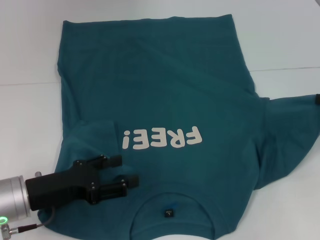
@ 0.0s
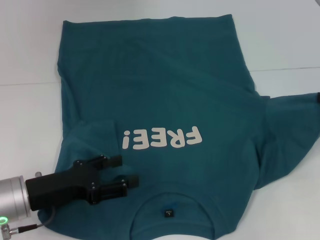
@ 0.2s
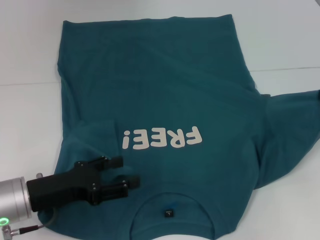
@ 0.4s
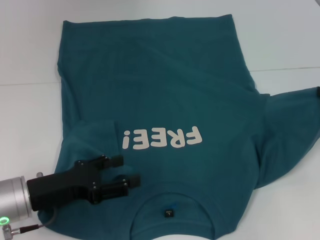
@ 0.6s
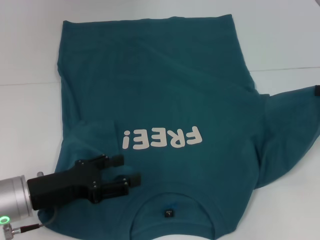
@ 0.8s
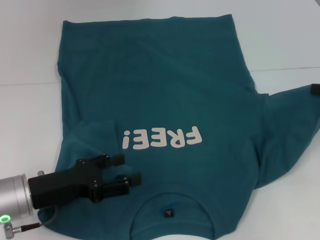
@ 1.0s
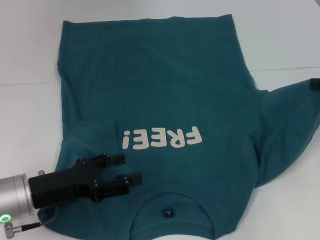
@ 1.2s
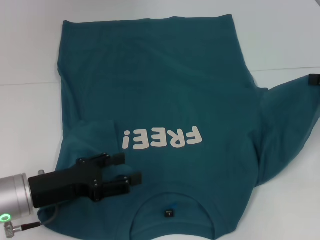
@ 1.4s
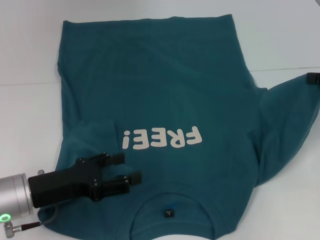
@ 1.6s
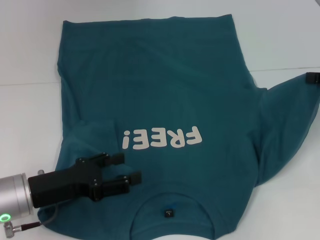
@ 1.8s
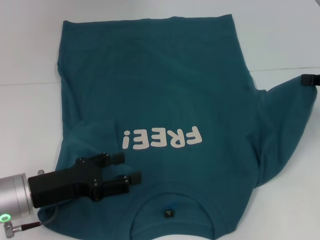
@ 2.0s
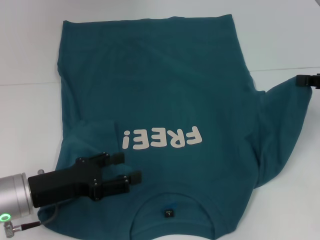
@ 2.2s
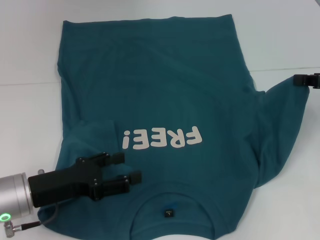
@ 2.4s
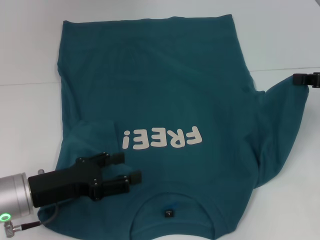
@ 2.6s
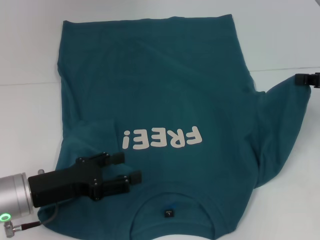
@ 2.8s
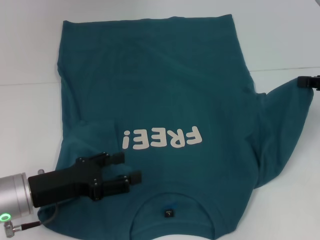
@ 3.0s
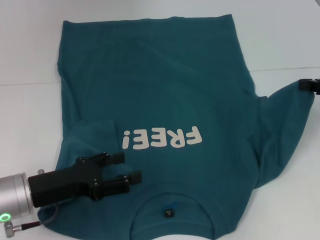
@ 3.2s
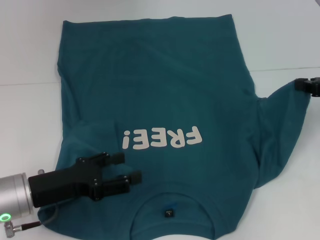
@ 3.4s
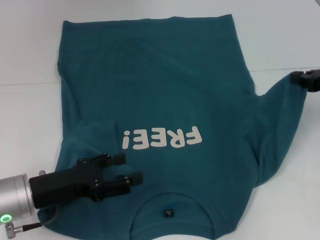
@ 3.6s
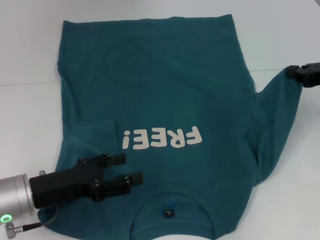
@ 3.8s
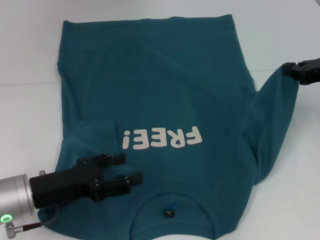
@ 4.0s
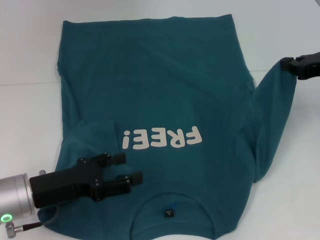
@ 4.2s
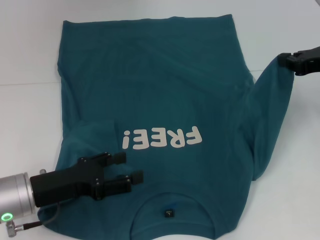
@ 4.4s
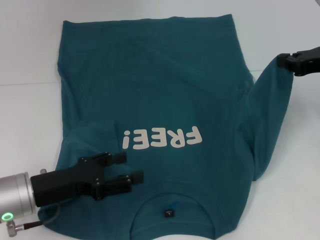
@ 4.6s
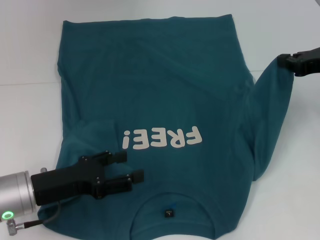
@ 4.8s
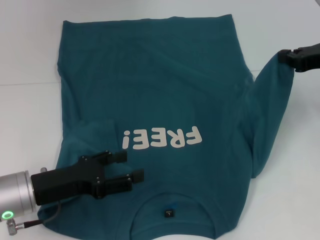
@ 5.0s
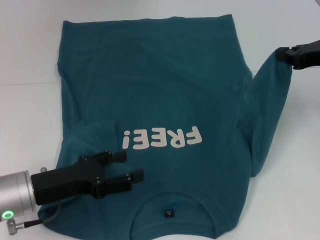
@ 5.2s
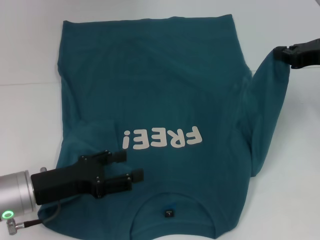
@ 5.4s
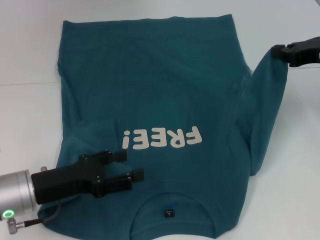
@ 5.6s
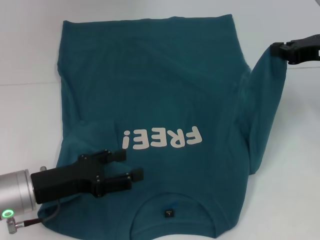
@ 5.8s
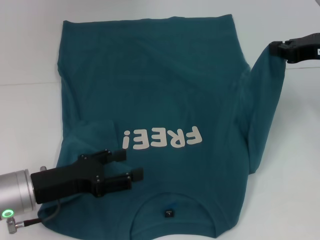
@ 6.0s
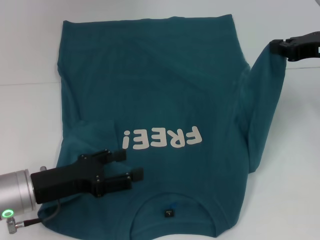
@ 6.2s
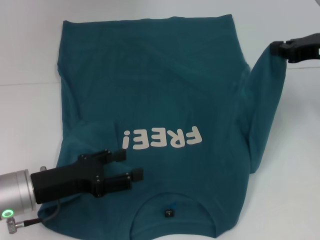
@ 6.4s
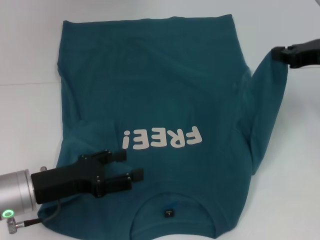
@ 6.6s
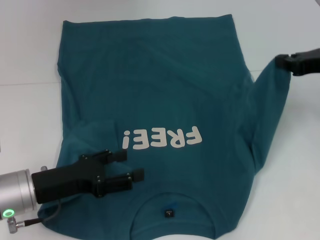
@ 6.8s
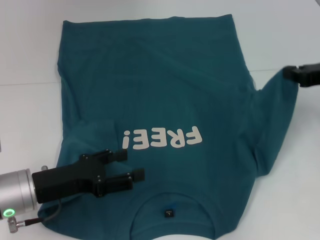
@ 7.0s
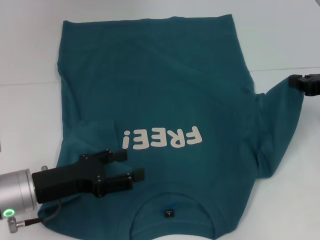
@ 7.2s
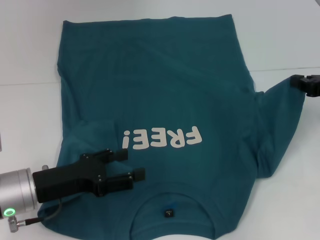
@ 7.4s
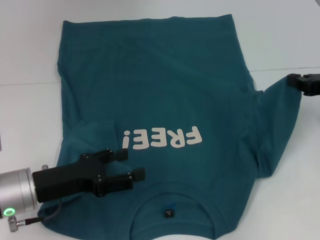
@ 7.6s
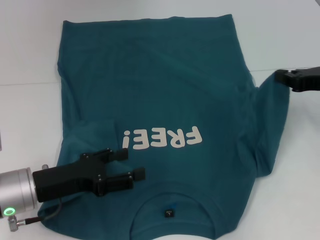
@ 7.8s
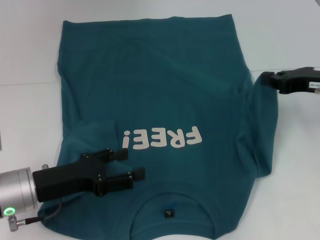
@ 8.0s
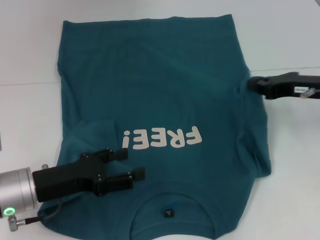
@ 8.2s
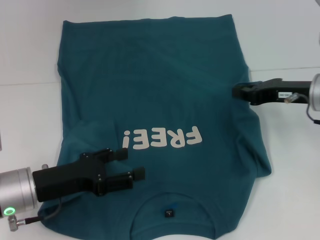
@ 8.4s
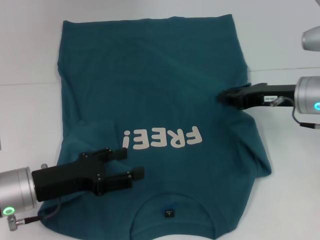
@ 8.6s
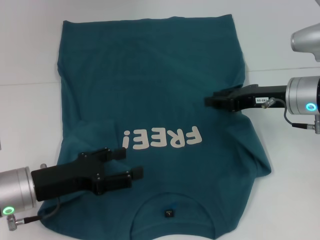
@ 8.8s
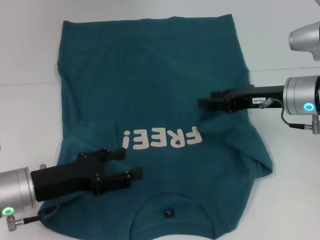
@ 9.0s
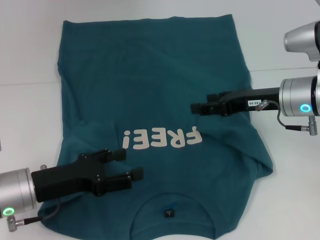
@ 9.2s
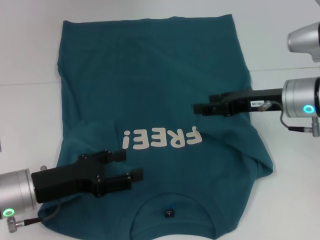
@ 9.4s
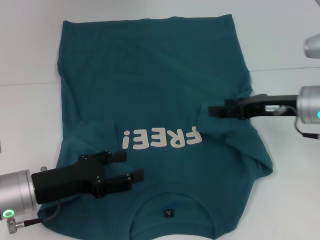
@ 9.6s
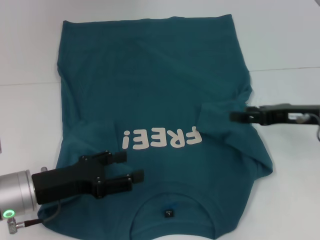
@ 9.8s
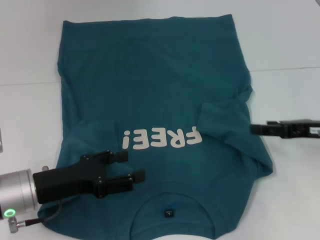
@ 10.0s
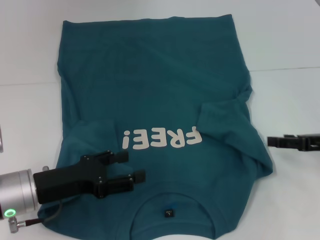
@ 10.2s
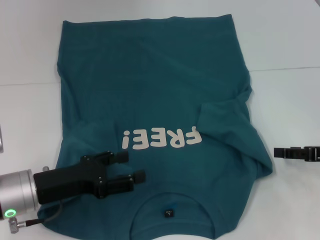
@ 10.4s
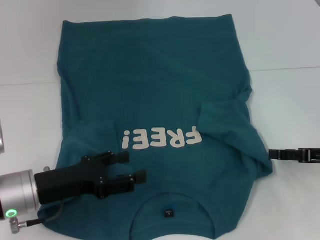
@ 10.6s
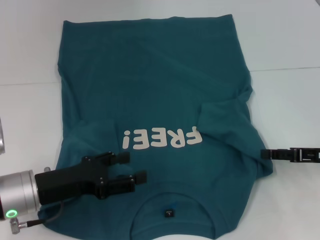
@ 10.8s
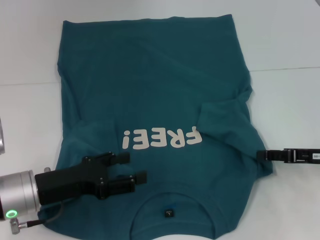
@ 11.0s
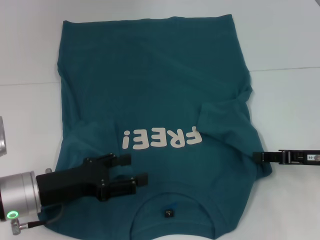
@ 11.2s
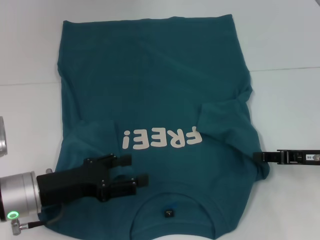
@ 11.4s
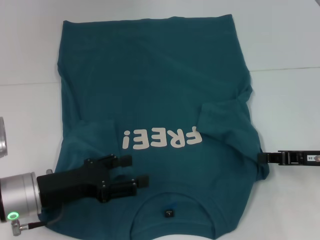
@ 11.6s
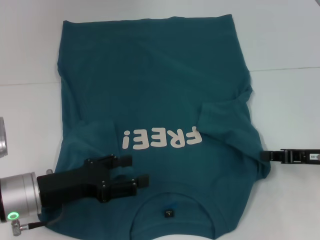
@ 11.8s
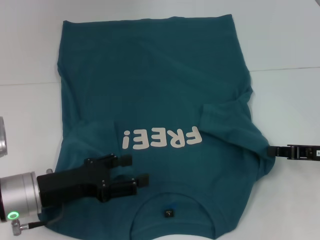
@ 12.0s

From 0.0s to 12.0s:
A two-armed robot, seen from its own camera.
From 0.0s to 3.0s: There are only small adjustments of the grippers.
From 3.0s to 4.4s: The grippers make only small movements.
From 4.4s to 6.0s: The grippers stay close to where they were, moving slightly.
From 6.0s to 7.6s: The right gripper changes place by some 5 cm.
From 7.6s to 9.0s: The right gripper goes approximately 10 cm to the left, and opens up.
From 9.0s to 10.4s: The right gripper moves to the right, backward and downward, approximately 15 cm, and opens up.
From 10.4s to 12.0s: The right gripper closes up.

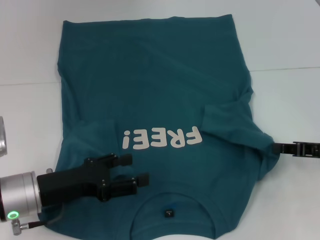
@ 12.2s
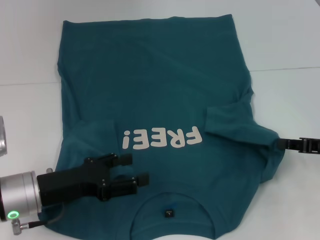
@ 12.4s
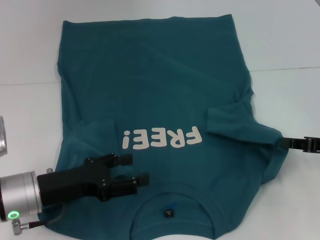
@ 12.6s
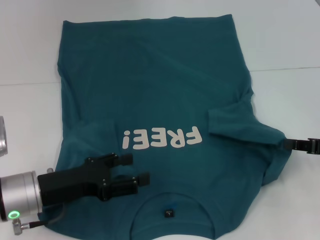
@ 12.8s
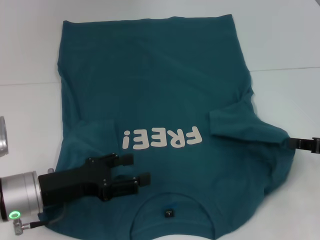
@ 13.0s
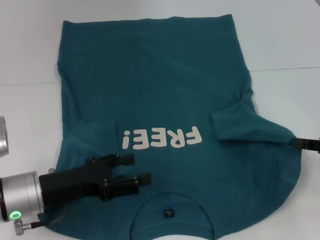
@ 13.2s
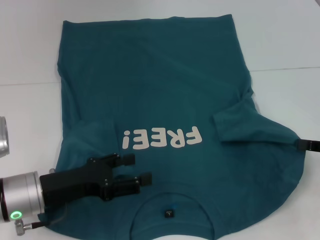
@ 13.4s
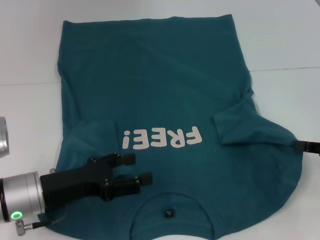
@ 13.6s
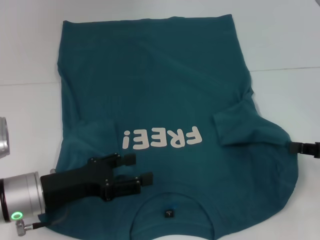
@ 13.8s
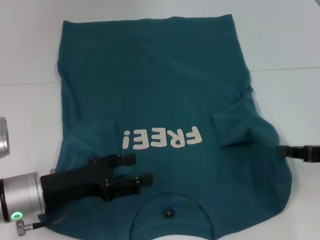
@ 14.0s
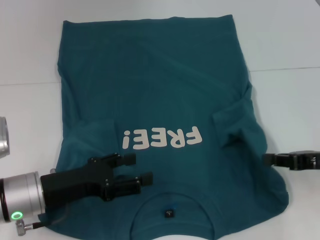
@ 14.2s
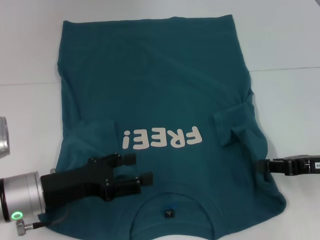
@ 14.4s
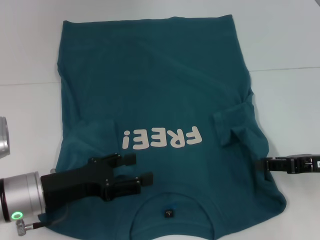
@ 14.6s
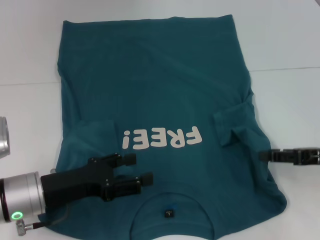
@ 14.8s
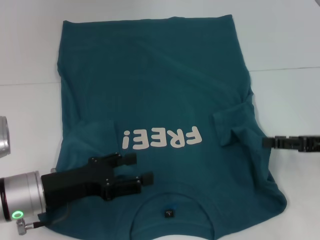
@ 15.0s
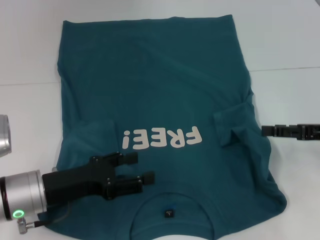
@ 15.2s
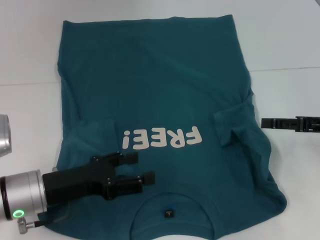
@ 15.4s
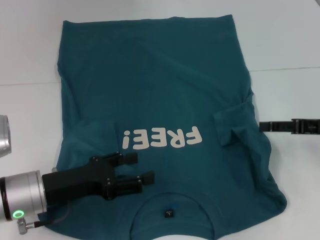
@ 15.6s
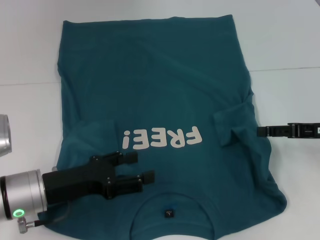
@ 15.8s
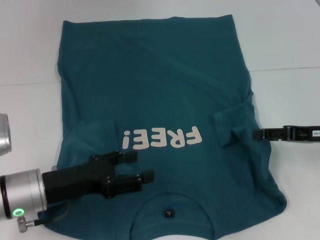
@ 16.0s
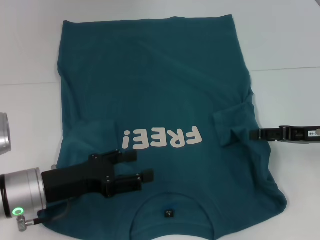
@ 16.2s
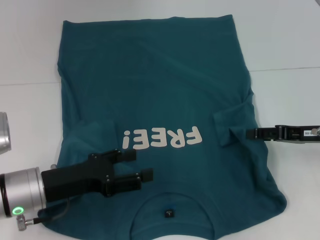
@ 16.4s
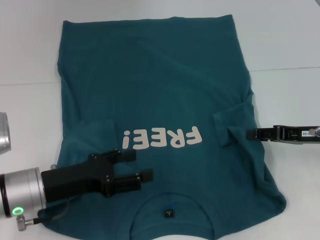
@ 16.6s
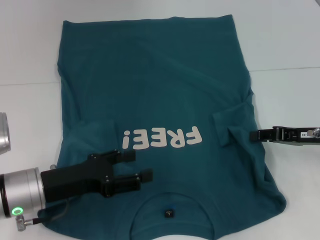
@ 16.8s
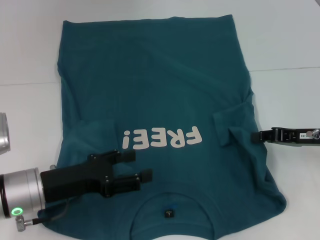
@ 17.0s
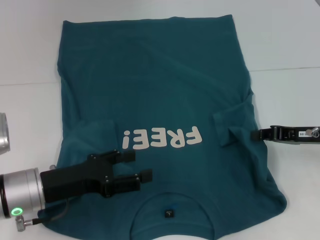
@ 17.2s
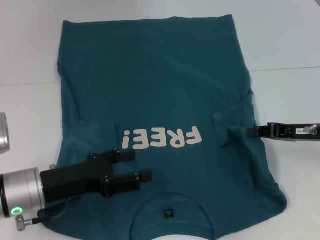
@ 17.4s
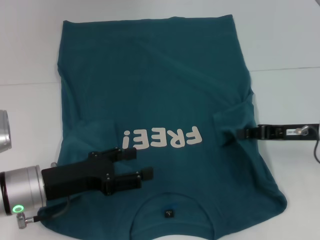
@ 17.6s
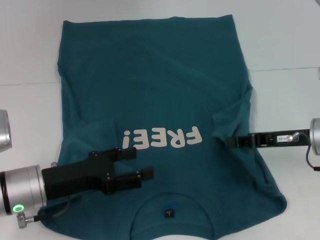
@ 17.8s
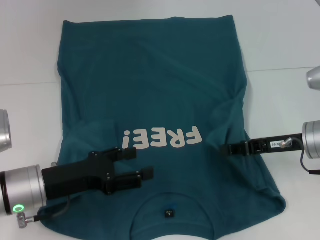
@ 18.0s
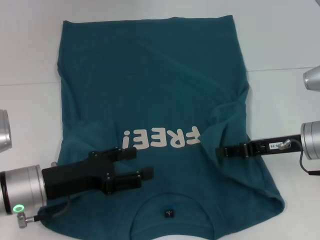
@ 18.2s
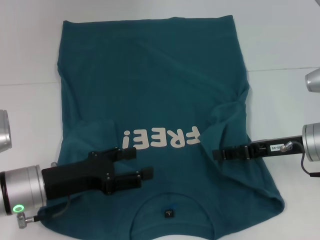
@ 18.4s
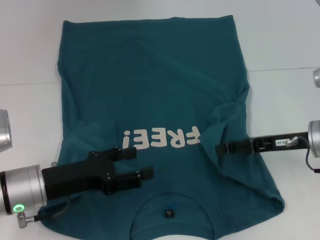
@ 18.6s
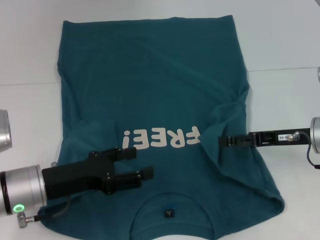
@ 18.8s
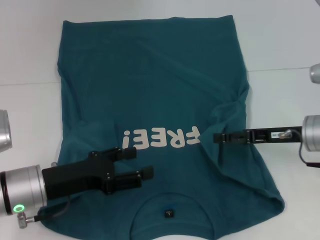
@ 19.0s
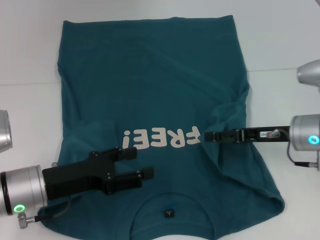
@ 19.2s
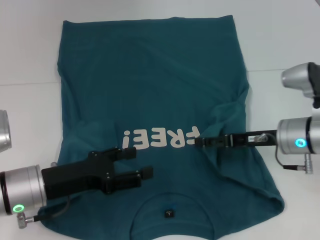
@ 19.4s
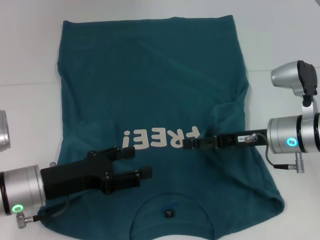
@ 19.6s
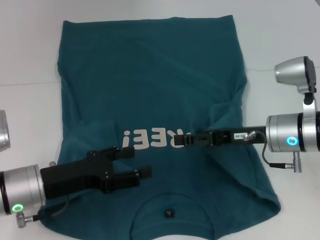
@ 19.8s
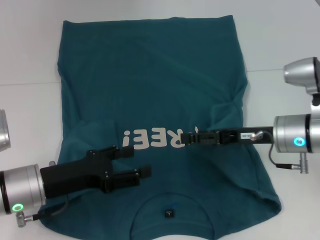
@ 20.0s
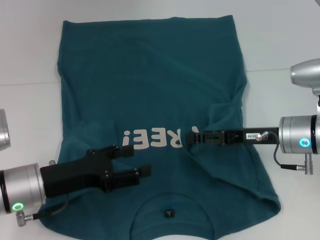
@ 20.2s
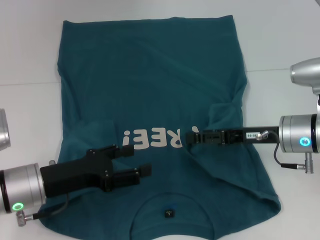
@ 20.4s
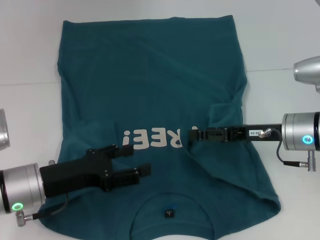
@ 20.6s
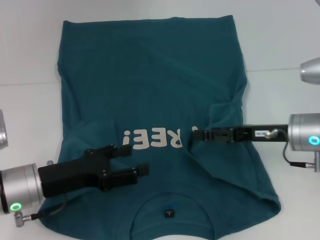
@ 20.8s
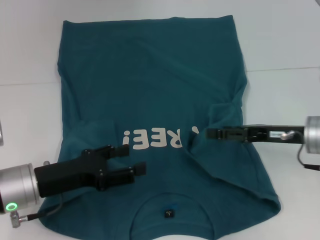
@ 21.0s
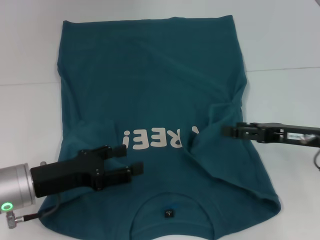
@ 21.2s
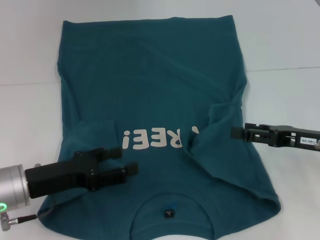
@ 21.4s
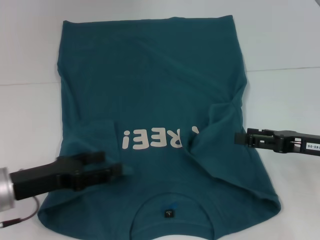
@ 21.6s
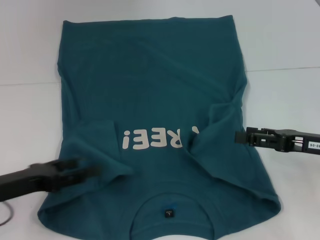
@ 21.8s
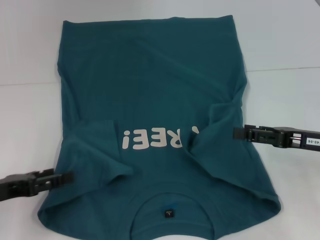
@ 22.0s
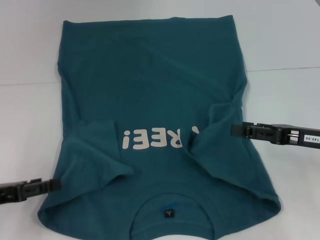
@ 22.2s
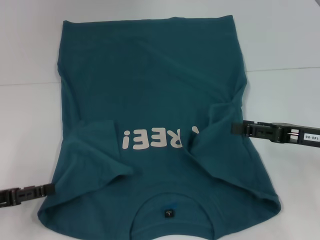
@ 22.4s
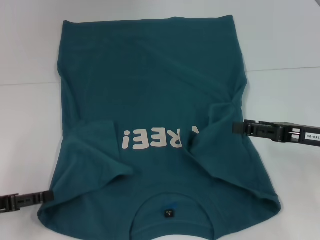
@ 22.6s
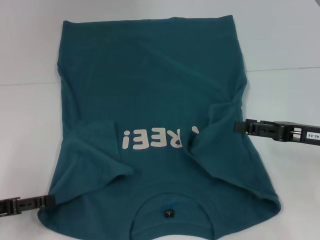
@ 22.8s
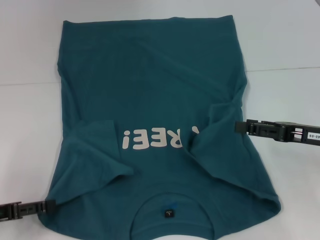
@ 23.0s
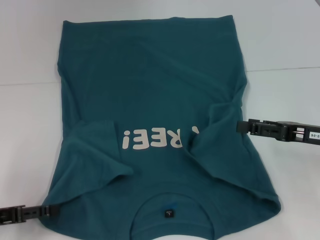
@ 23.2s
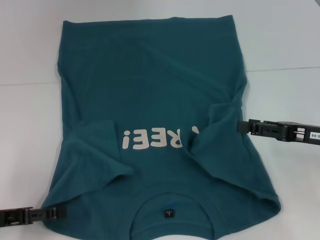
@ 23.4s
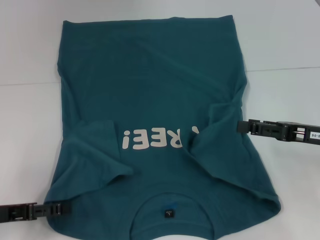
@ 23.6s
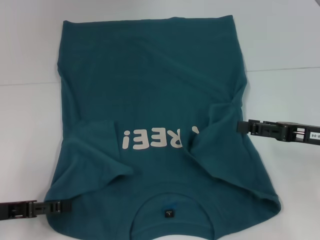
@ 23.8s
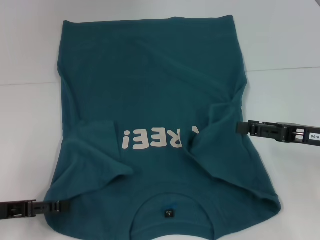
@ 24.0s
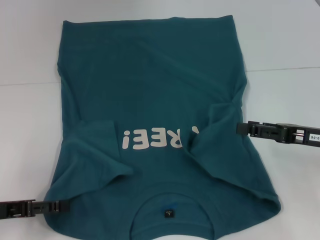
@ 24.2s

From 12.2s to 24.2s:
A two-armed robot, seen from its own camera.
Step, from 12.2s to 21.2s: Fold the bottom right sleeve to the right.
From 12.2s to 13.8s: The grippers make only small movements.
From 13.8s to 15.2s: The right gripper opens.
From 15.2s to 16.6s: The grippers move only a little.
From 16.6s to 18.2s: The right gripper heads to the left, covering some 5 cm, and closes its fingers.
From 18.2s to 19.8s: The right gripper ends up some 5 cm from where it was, and opens its fingers.
From 19.8s to 21.2s: The right gripper goes approximately 5 cm to the right.
From 21.2s to 22.6s: The left gripper travels to the left by roughly 10 cm.
From 22.6s to 24.2s: The grippers stay close to where they were, moving slightly.
